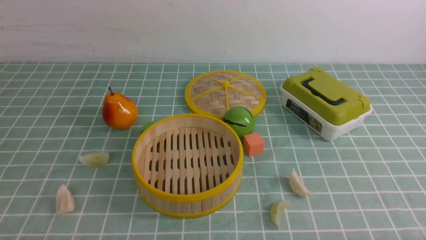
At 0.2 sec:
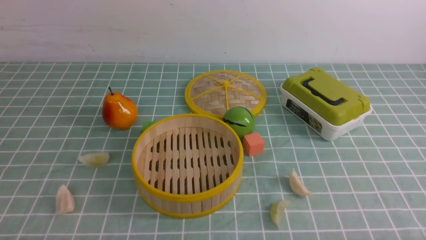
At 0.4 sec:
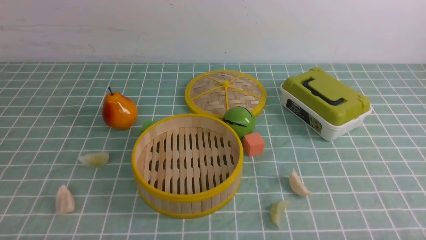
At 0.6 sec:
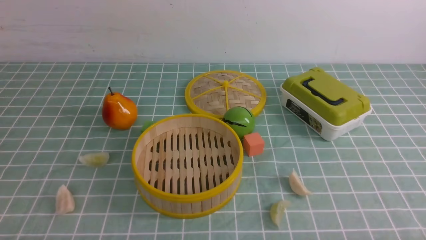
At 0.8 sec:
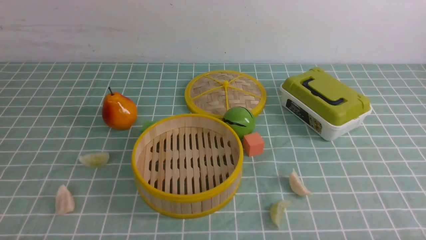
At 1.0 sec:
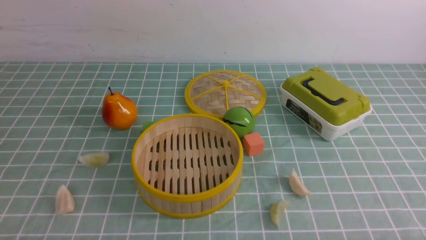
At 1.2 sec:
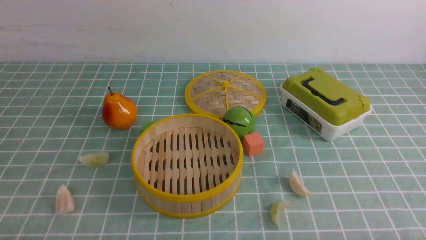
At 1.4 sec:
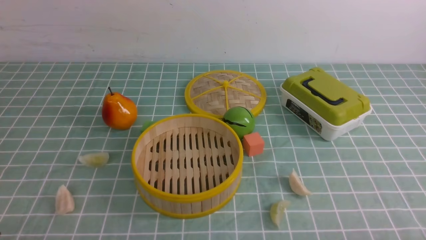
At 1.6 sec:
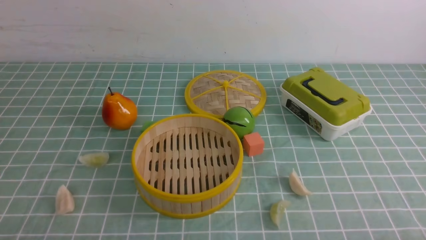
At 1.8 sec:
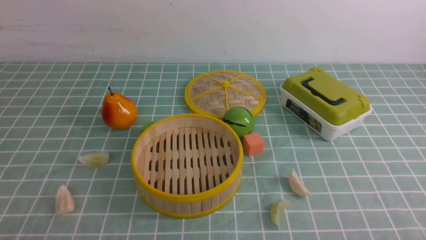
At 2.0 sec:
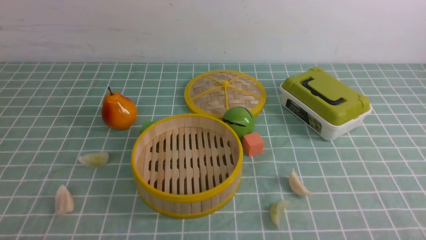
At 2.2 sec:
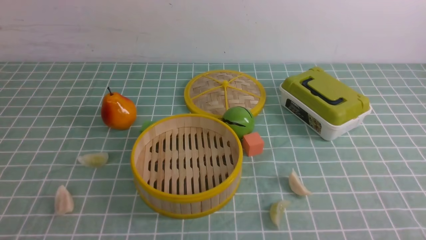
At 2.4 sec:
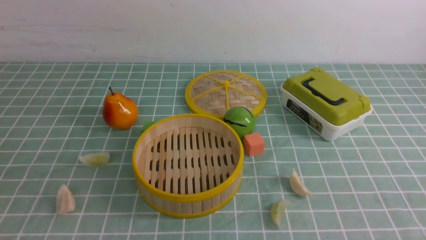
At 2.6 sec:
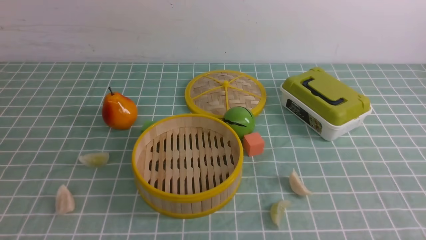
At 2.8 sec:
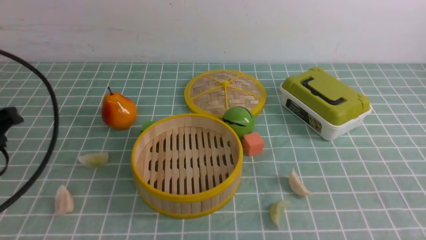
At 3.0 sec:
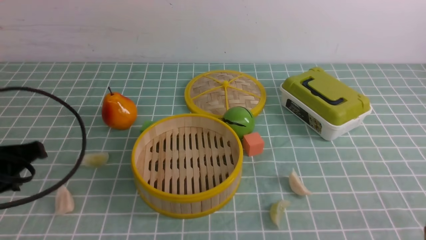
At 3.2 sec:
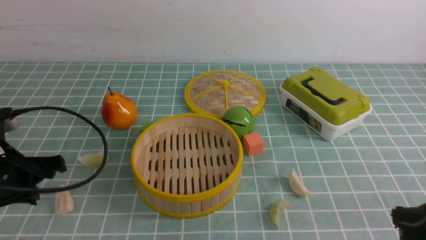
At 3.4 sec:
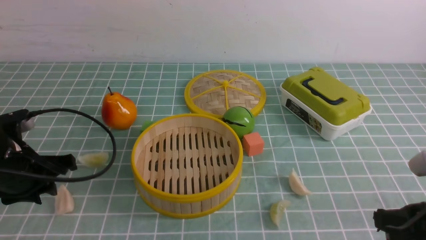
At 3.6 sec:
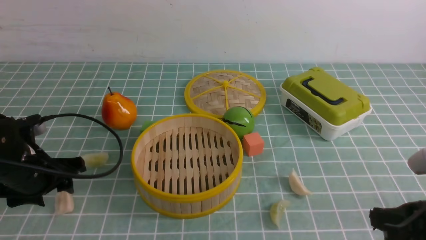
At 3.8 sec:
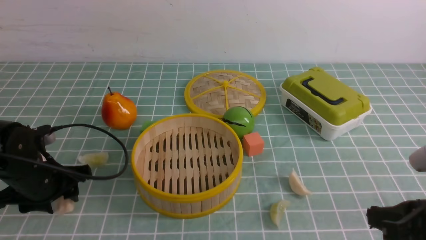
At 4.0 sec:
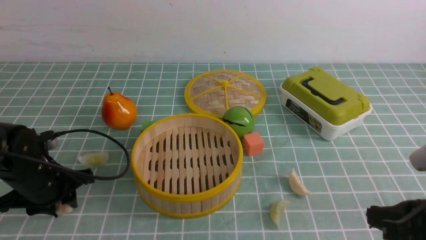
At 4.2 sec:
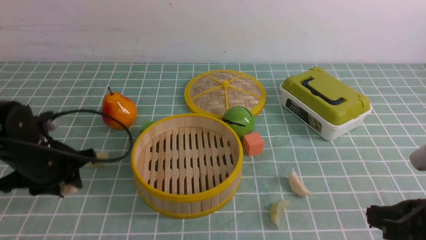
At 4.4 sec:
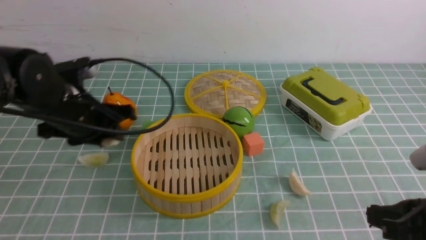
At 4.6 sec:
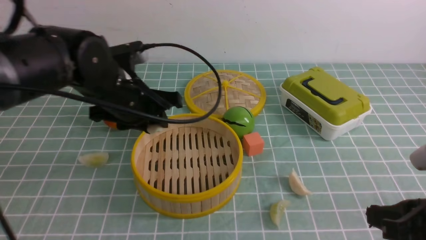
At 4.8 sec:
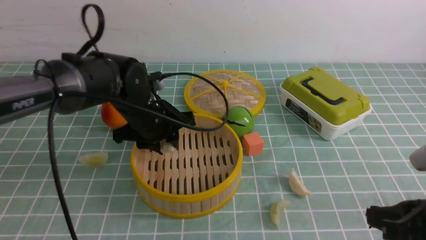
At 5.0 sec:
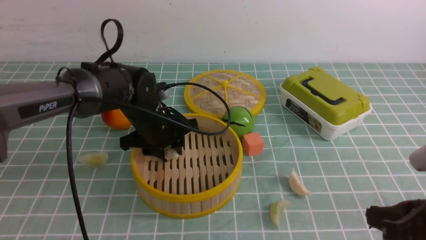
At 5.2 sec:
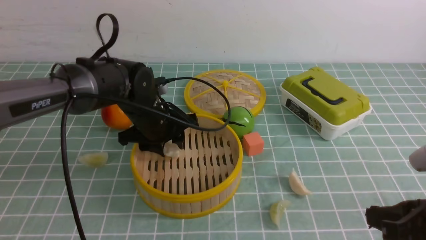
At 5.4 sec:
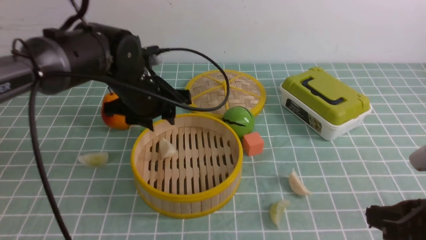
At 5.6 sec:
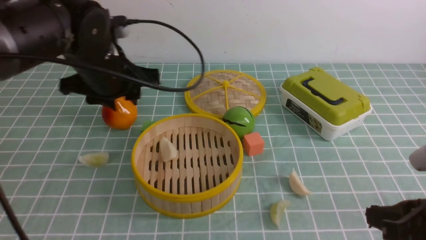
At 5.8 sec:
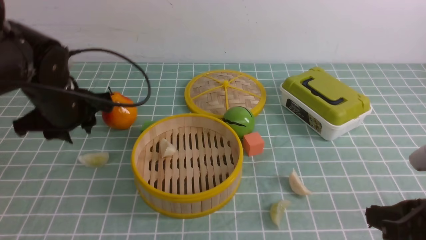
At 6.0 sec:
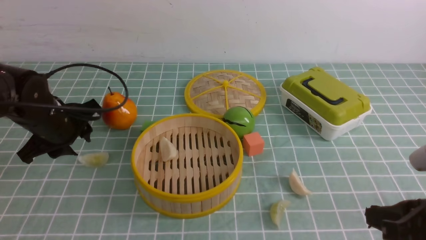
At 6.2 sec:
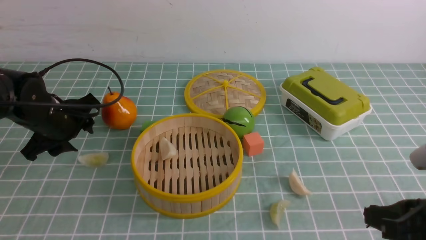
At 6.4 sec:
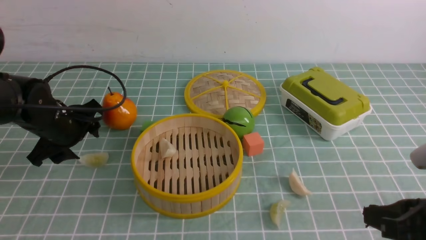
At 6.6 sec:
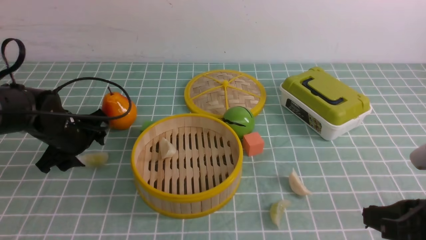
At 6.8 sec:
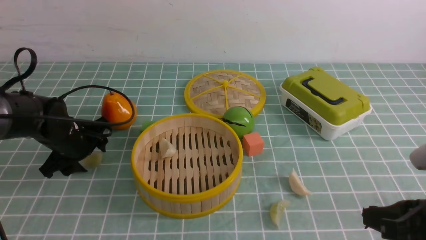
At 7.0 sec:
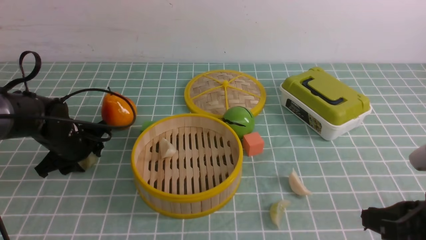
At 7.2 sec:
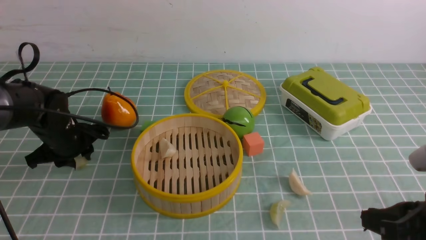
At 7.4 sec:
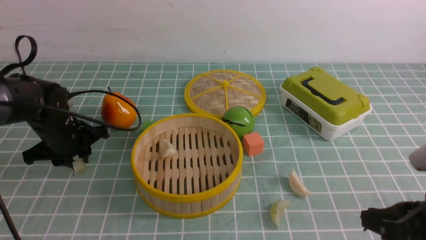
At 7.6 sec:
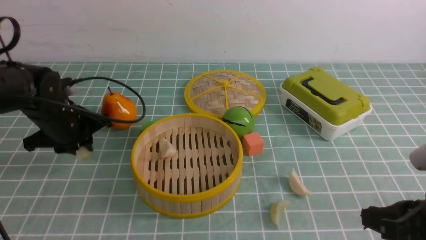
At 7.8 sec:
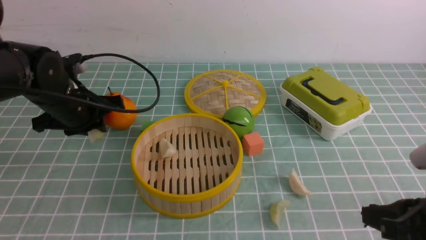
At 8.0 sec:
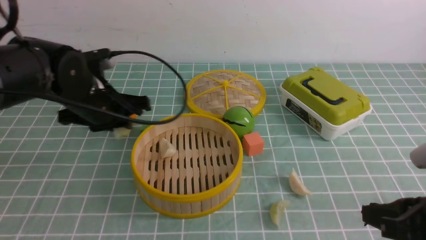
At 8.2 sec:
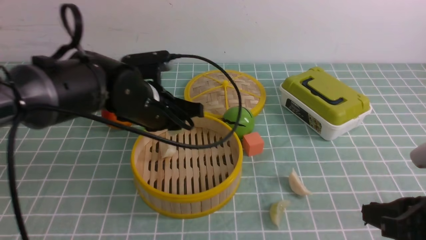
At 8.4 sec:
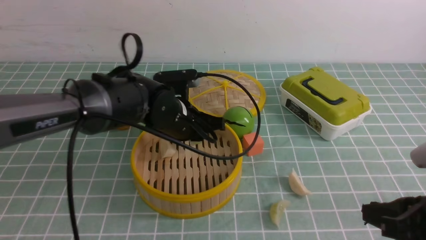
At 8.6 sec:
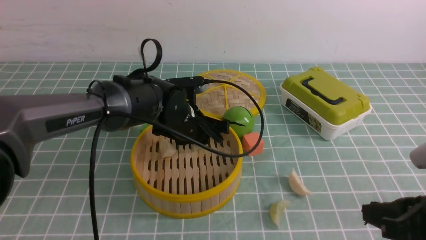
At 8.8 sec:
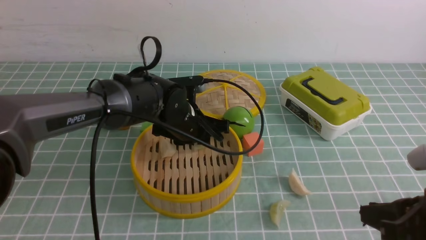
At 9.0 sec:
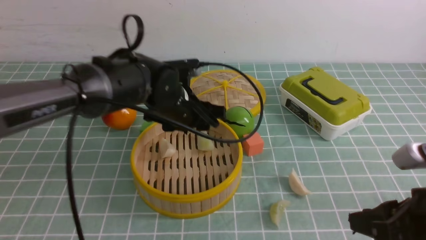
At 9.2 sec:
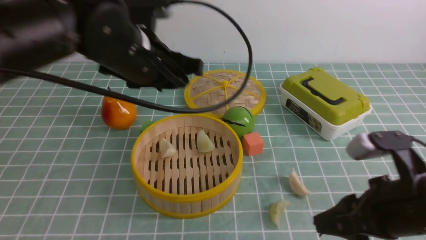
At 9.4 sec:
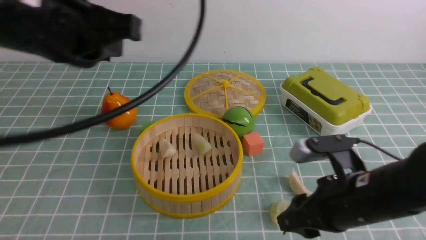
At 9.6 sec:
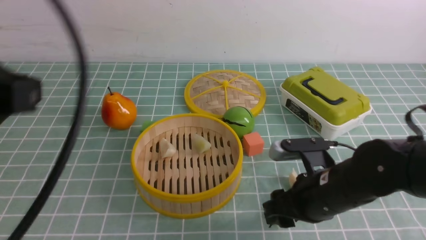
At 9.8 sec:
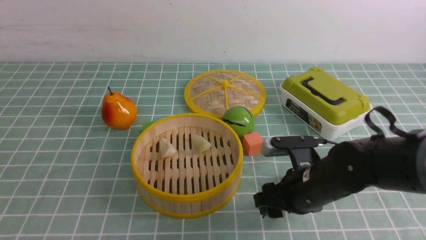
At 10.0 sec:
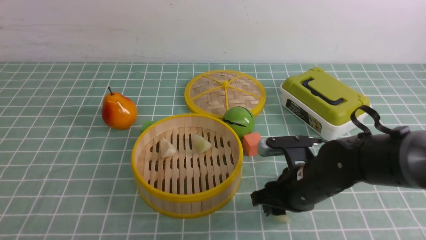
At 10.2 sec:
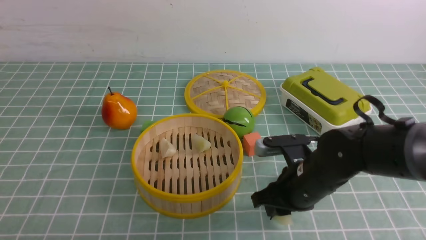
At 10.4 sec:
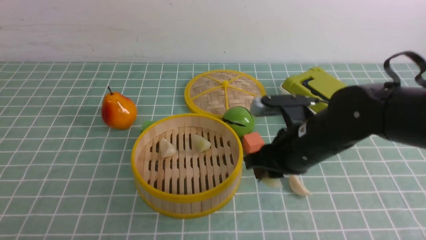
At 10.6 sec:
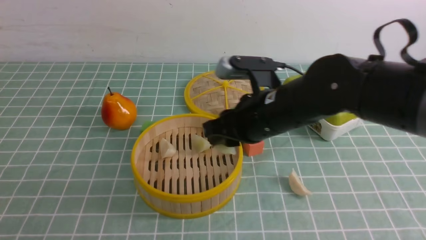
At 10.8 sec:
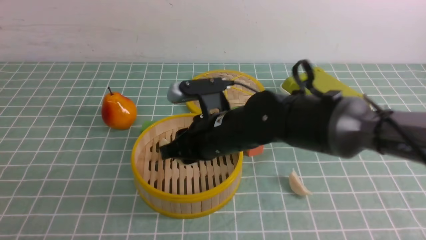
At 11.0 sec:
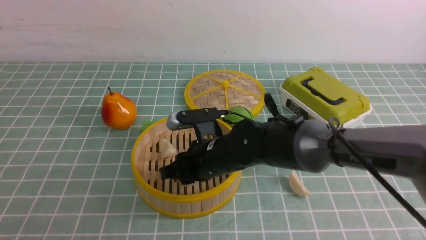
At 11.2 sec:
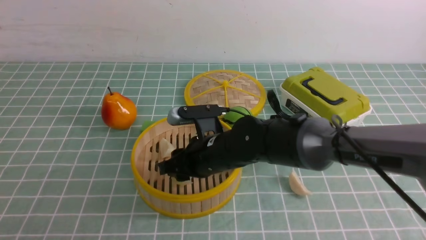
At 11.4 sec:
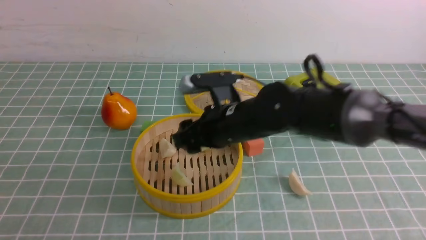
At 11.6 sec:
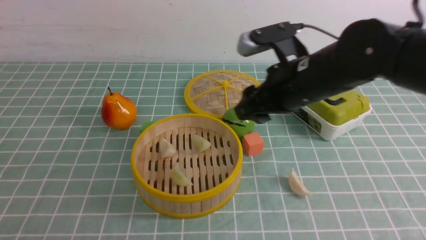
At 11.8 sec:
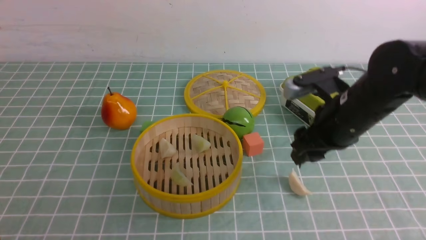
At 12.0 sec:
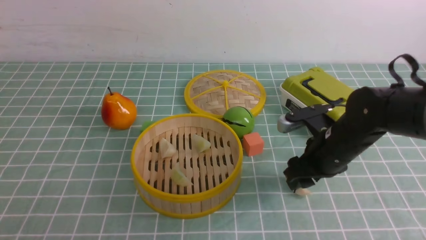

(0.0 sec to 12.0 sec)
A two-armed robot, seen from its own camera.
Task of the whole recording: put the dumplings into the steamer on the table with the blue tablecloth.
Step, 0.0 sec - 3.8 sec: use the left arm to grab a dumpling.
Step, 4.0 sec - 5.6 sec: use the left arm to put the dumpling into the steamer.
Step, 5.8 sec - 7.0 sec: use the left arm to grab a dumpling.
Step, 7.2 sec - 9.0 sec: use the left arm to put the dumpling into the steamer.
Step, 9.2 sec - 10.0 sec: use the right arm to grab a dumpling.
Step, 10.2 sec - 11.4 sec: use the right arm to put the dumpling into the steamer.
1.6 sec - 3.0 sec: The left gripper moves forward, about 15 cm.
3.0 sec - 4.4 sec: The left gripper moves forward and to the right, some 15 cm, and opens its fingers.
4.4 sec - 6.0 sec: The left gripper heads to the left, covering approximately 5 cm.
6.0 sec - 7.6 sec: The left gripper closes.
7.6 sec - 9.0 sec: The left gripper travels to the right by some 15 cm.
9.0 sec - 10.4 sec: The left gripper heads backward and to the left, covering approximately 35 cm, and closes up; the right gripper moves to the left and forward, some 20 cm, and opens, then closes once more.
10.4 sec - 12.0 sec: The right gripper shifts some 10 cm to the right, and opens its fingers.

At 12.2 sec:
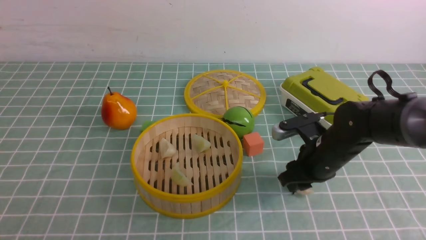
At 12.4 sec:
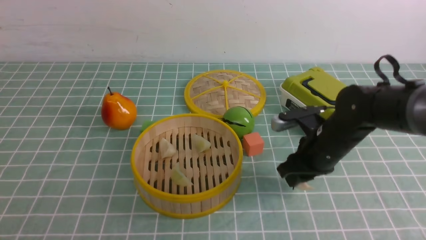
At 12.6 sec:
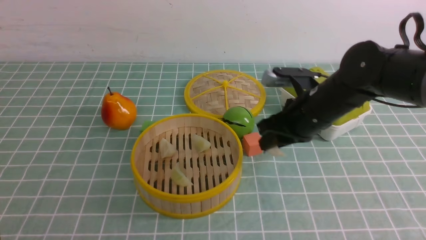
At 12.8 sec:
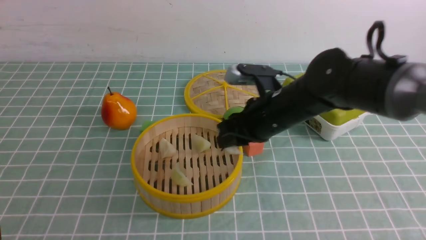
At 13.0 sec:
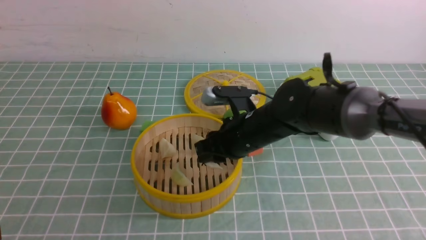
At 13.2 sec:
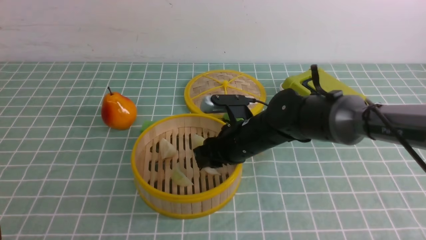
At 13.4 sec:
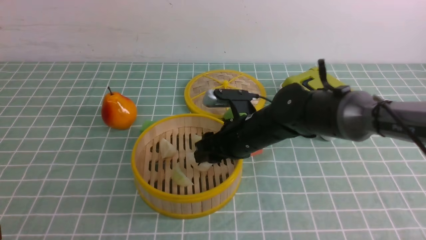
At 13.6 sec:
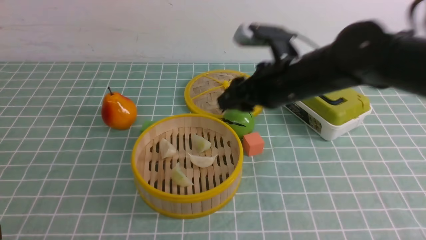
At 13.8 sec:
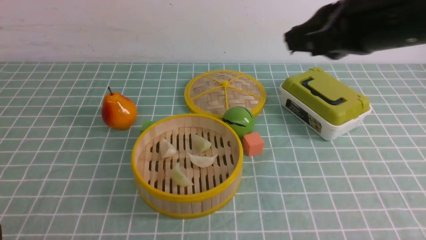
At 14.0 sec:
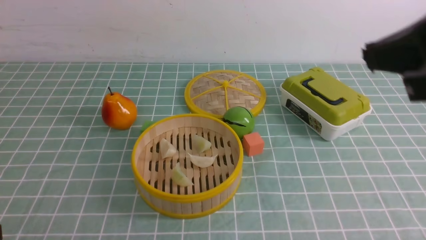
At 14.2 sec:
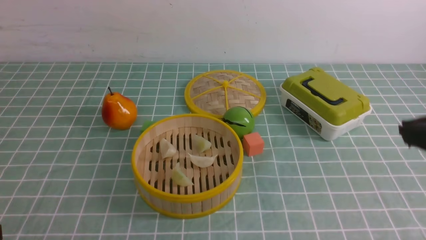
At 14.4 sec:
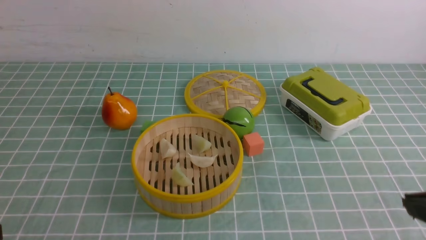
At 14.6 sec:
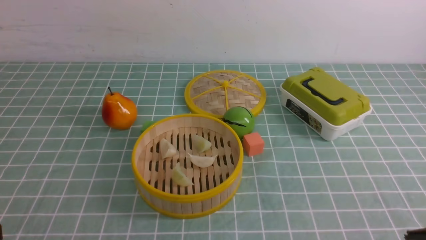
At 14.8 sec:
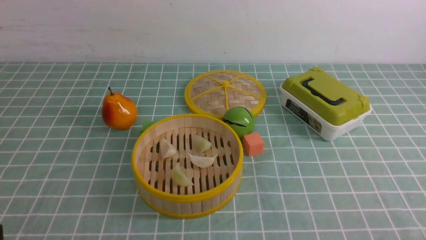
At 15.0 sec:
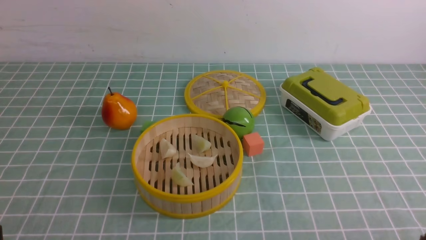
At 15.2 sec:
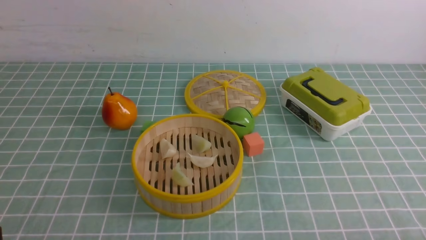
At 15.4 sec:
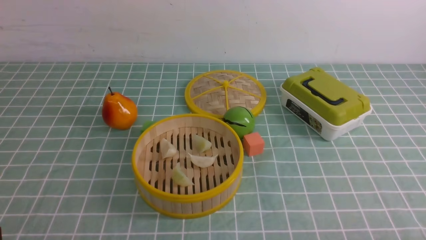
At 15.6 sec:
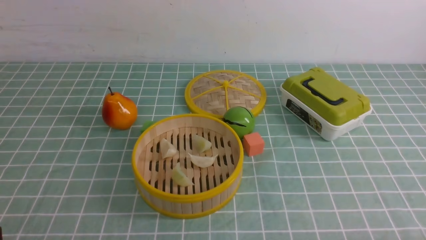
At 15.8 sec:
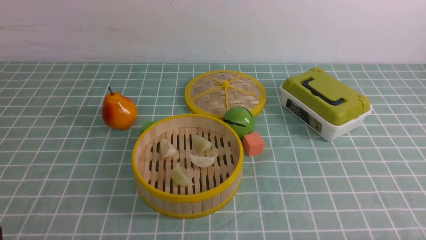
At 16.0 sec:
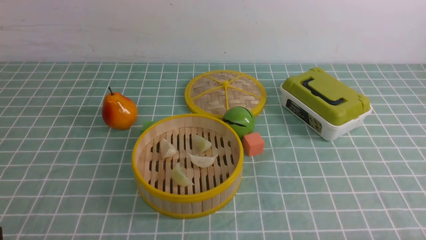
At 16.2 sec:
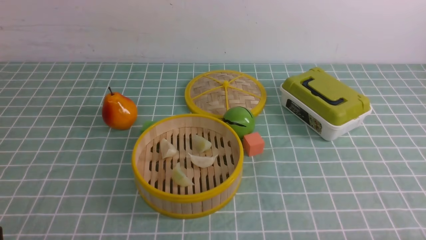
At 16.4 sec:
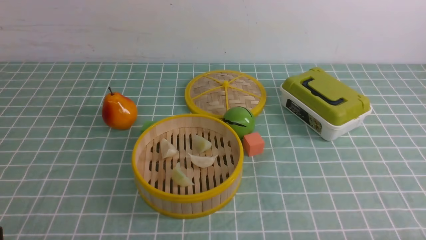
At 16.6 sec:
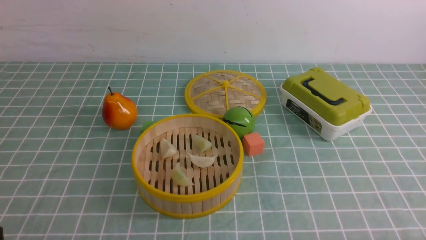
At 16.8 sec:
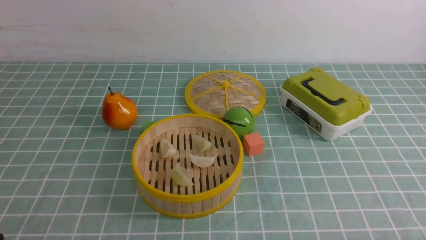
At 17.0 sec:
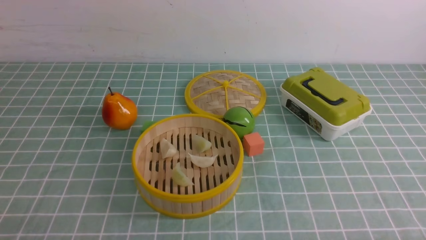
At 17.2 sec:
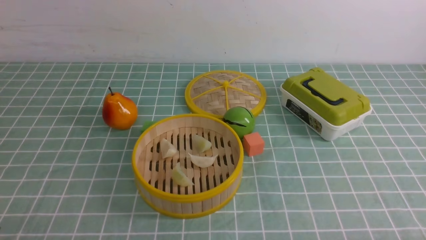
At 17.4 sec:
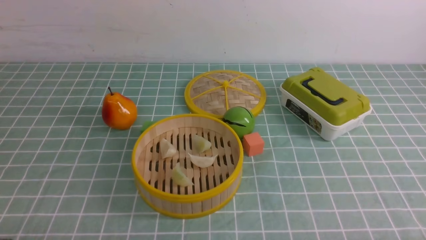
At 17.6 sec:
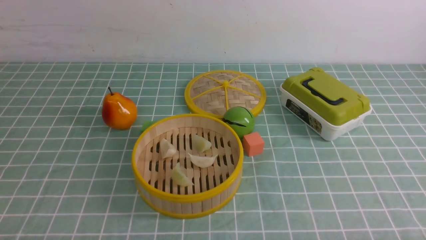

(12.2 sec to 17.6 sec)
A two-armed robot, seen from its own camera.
Task of the whole recording: put the dumplings into the steamer on the table with the blue tablecloth.
Step, 12.4 sec - 13.4 sec: use the right arm to put the dumpling into the steamer.
12.2 sec - 13.6 sec: The right gripper goes some 15 cm upward.
13.6 sec - 15.0 sec: The right gripper shifts some 35 cm backward, to the right and downward, and closes.
